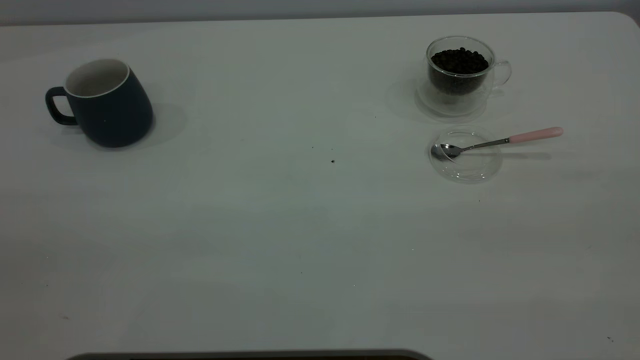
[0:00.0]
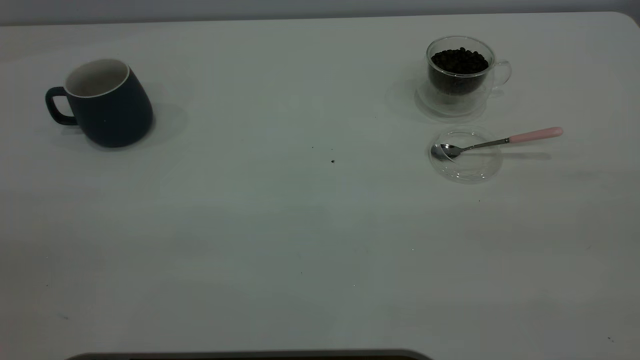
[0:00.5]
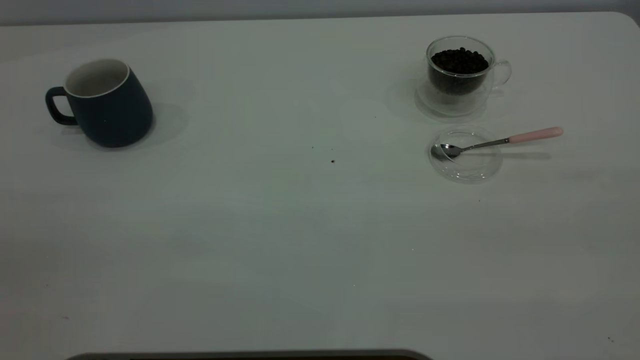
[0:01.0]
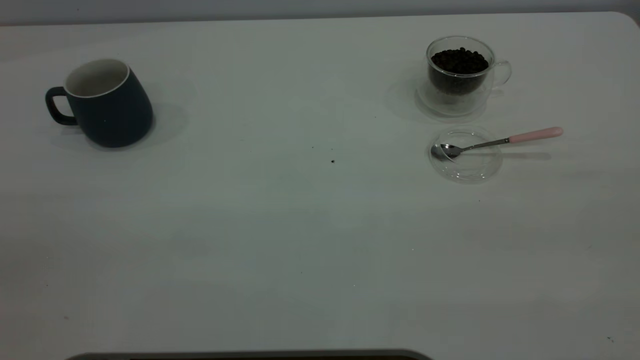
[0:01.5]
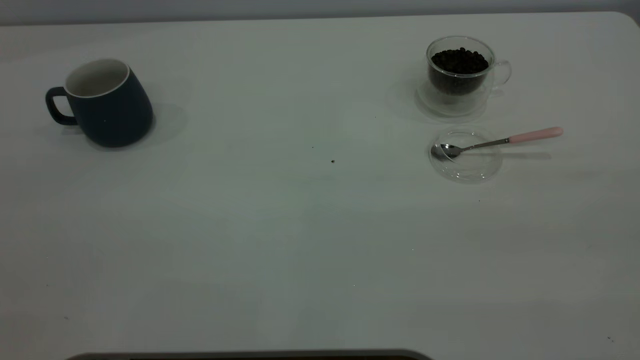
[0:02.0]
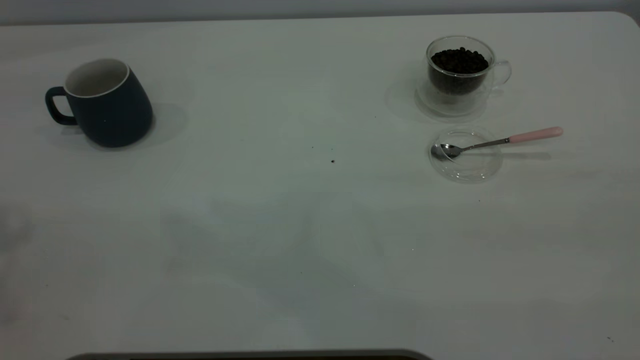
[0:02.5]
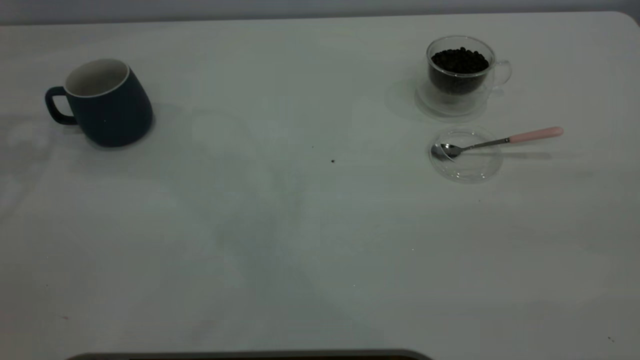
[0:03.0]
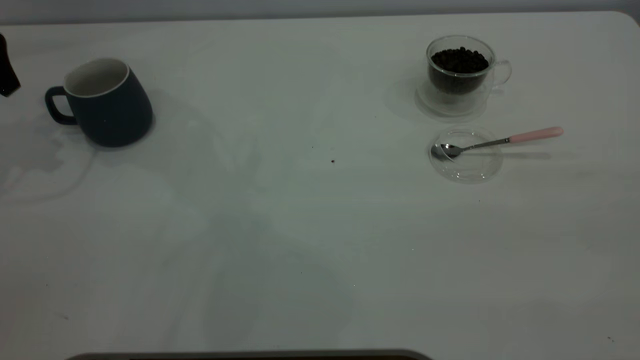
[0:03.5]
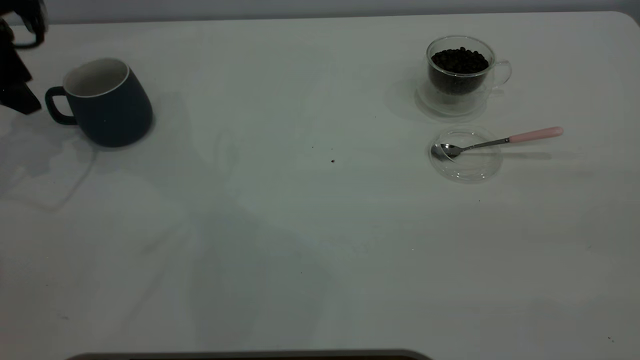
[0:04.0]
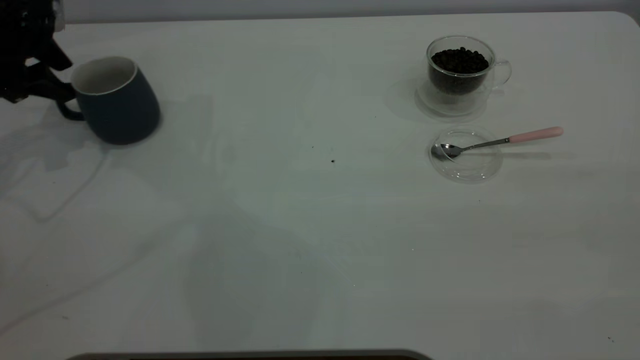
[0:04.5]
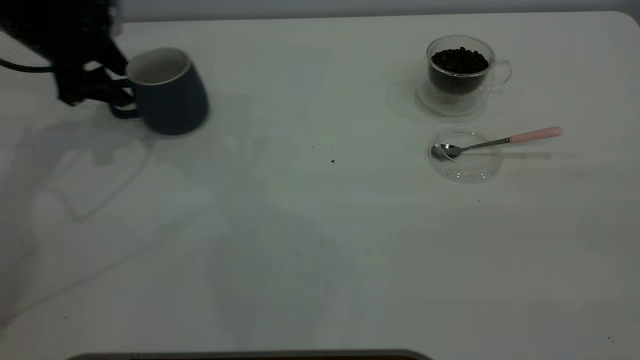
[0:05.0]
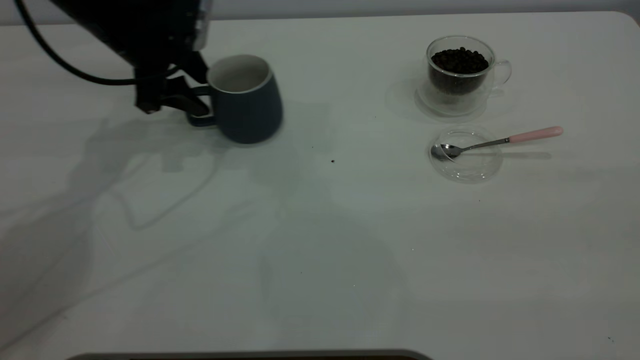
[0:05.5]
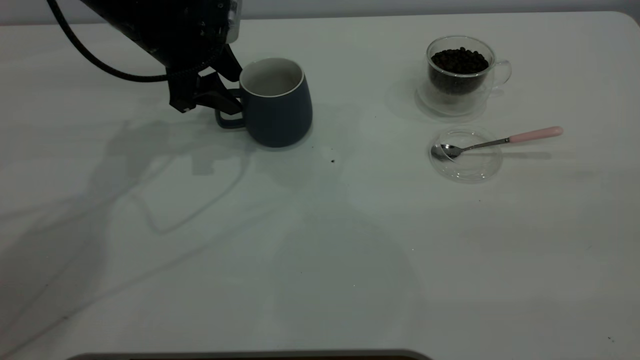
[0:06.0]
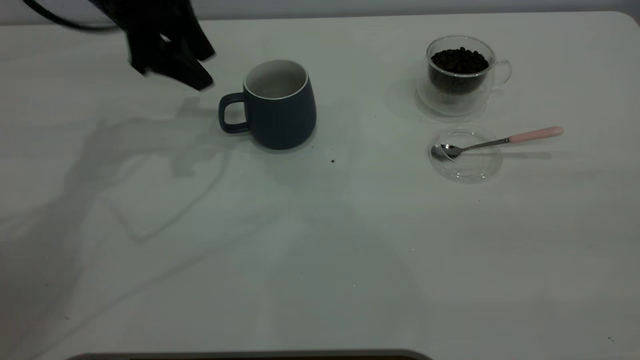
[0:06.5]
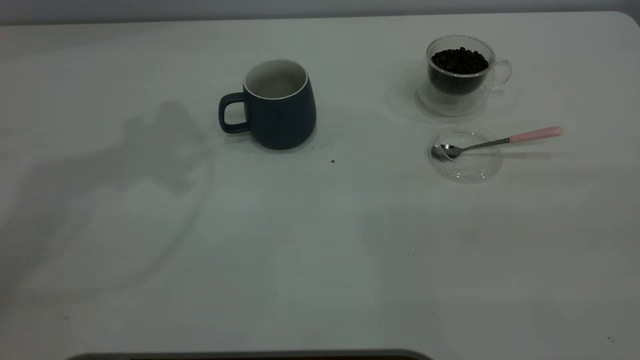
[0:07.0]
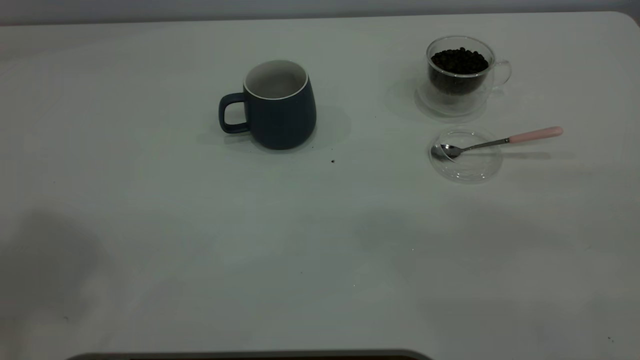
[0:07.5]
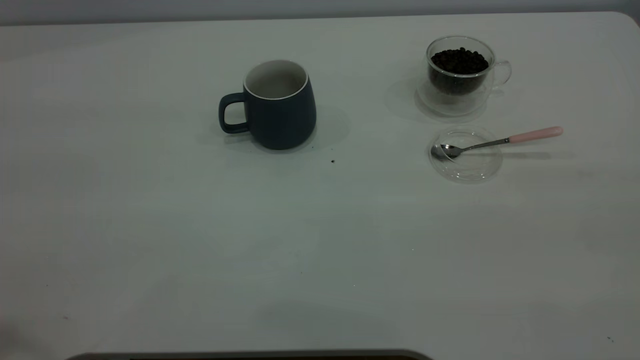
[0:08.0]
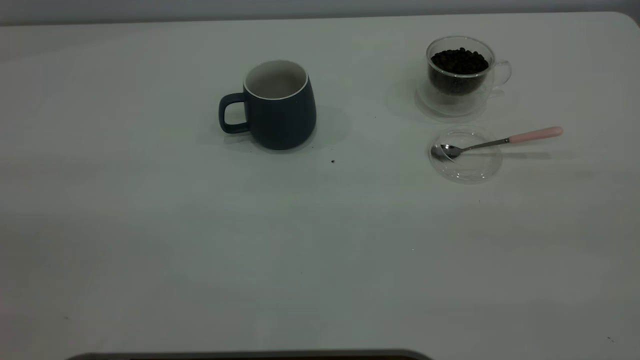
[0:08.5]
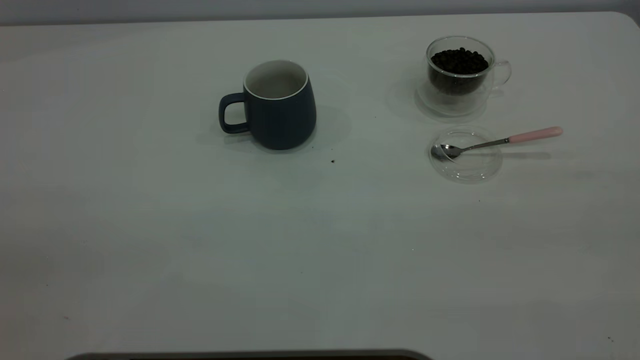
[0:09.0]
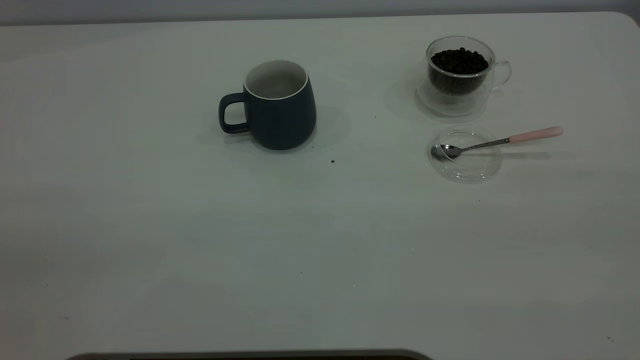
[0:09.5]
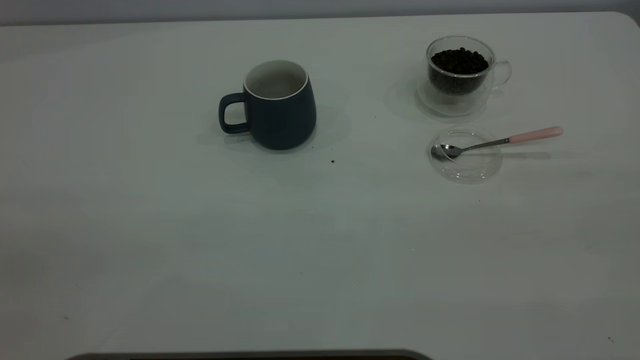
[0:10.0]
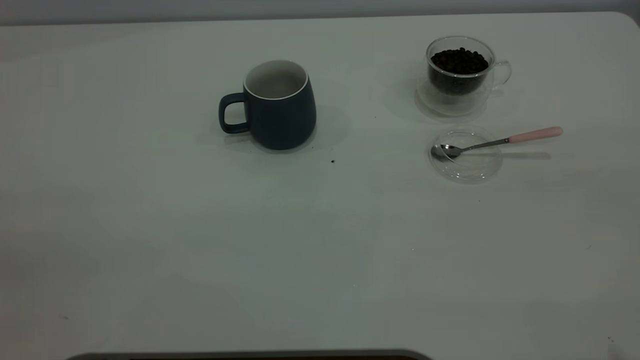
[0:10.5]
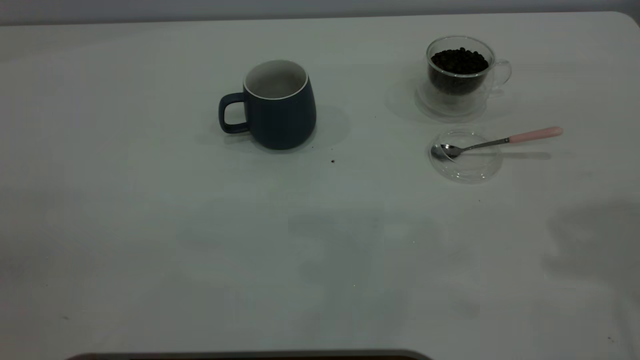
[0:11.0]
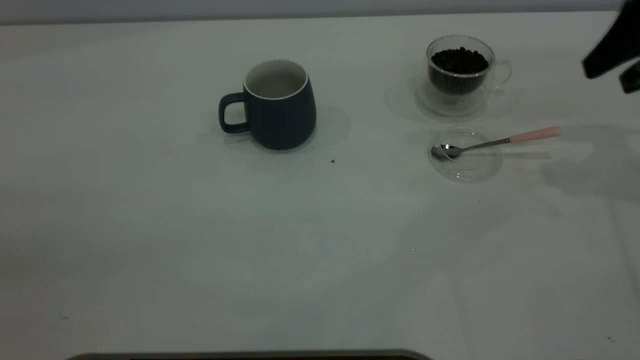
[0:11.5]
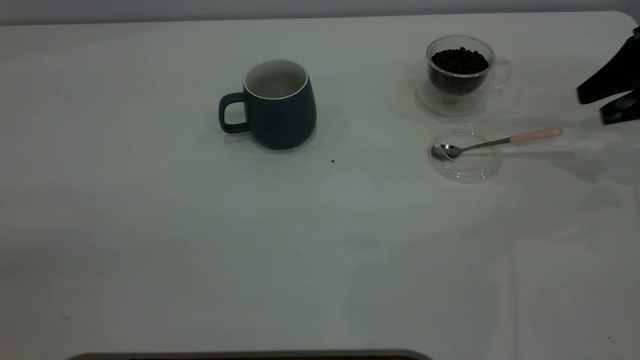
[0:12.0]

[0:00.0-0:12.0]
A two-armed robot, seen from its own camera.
Task of the whole recording: the left gripper place the grey cup in the center of the table, the right gripper take the pink spoon from the cup lid and scoop out the coffee beans from the coffee cup and put them into the grey cup, the right gripper put the spoon back into the cup lid.
Step, 0:00.0 to 0:06.0: Move the cup to the center of view.
0:02.0 to 0:04.0: The left gripper shifts some 50 cm forward and downward.
0:04.0 to 0:06.0: The left gripper goes about 20 cm to the right.
0:06.0 to 0:08.0: The left gripper heads backward and upward, covering approximately 40 cm.
0:10.0 to 0:12.0: The right gripper shifts roughly 40 cm forward and downward.

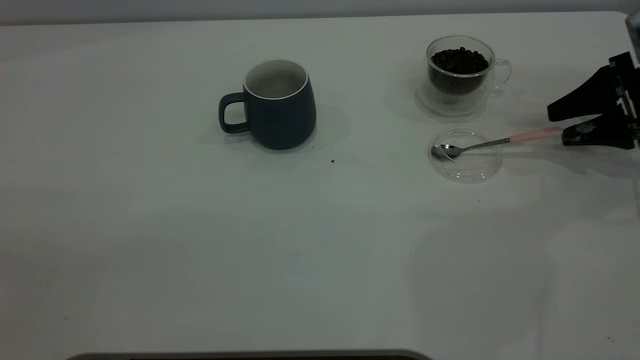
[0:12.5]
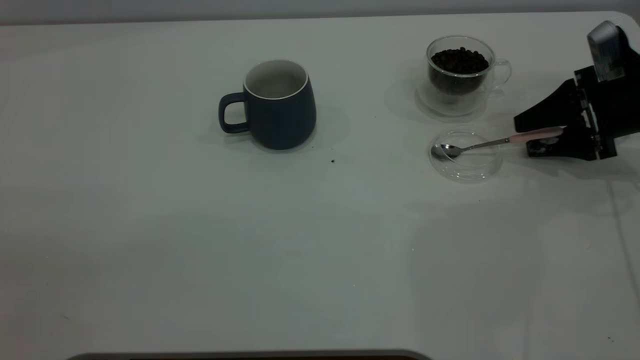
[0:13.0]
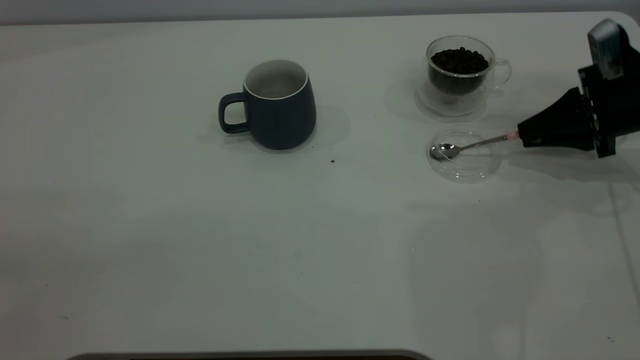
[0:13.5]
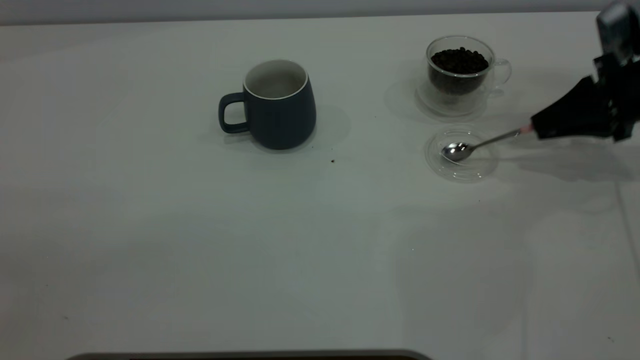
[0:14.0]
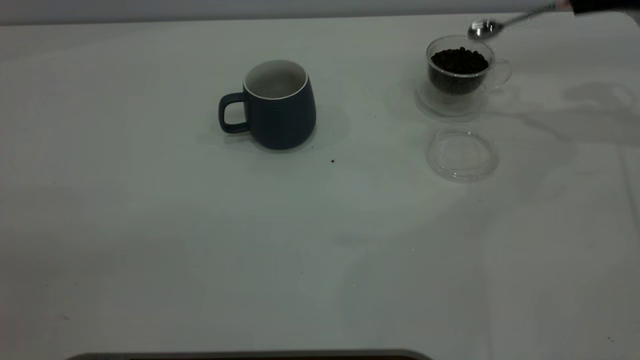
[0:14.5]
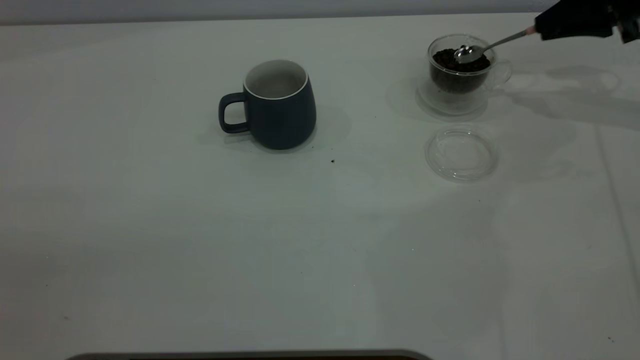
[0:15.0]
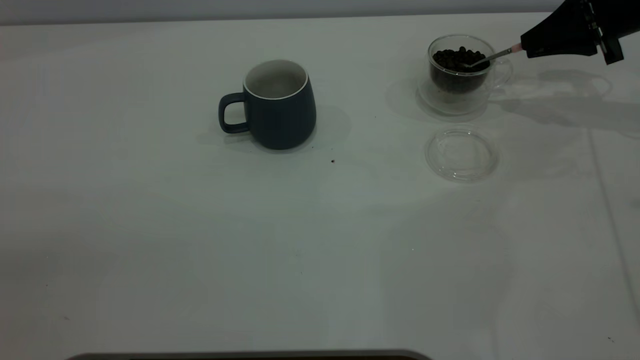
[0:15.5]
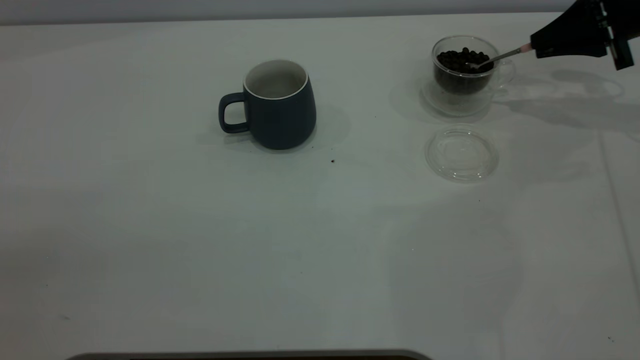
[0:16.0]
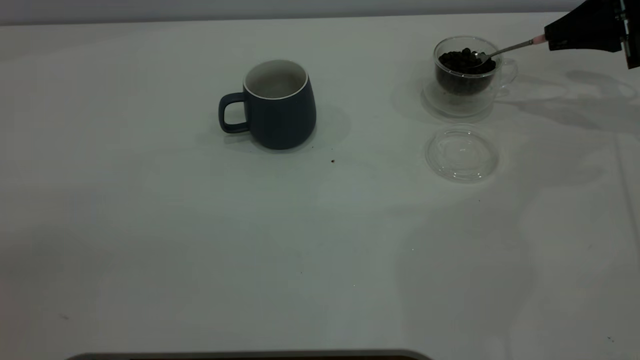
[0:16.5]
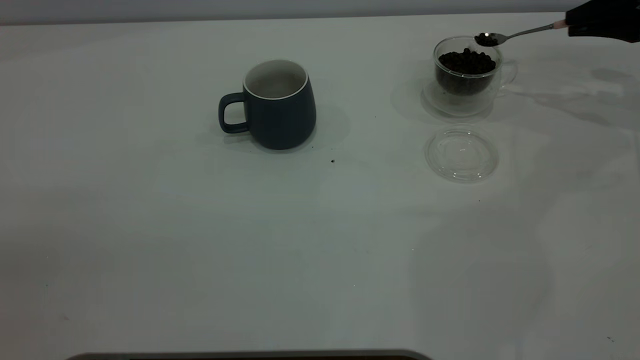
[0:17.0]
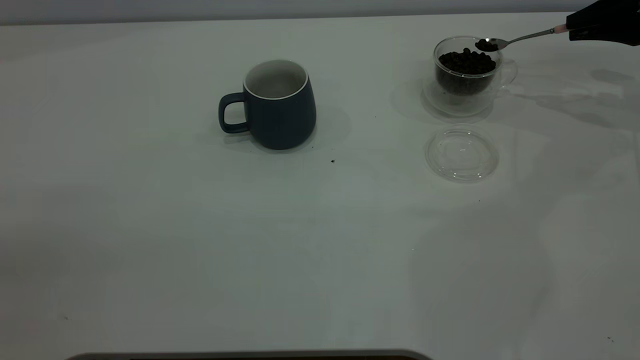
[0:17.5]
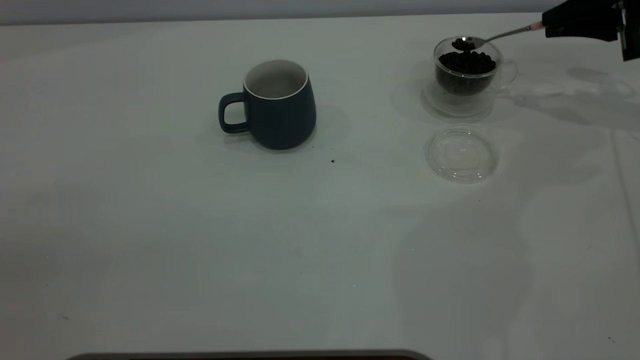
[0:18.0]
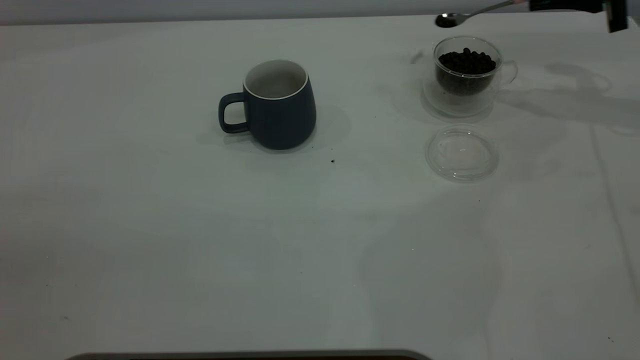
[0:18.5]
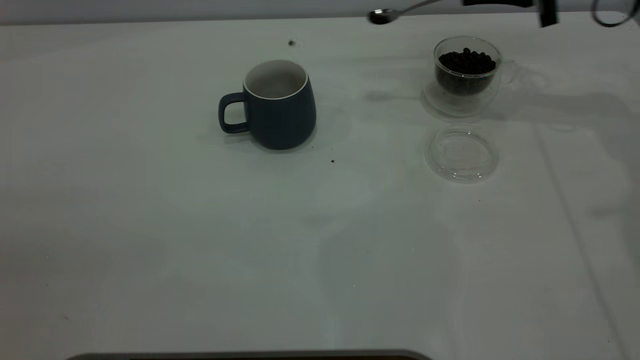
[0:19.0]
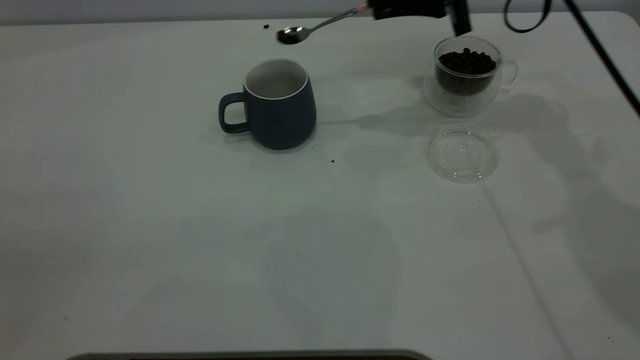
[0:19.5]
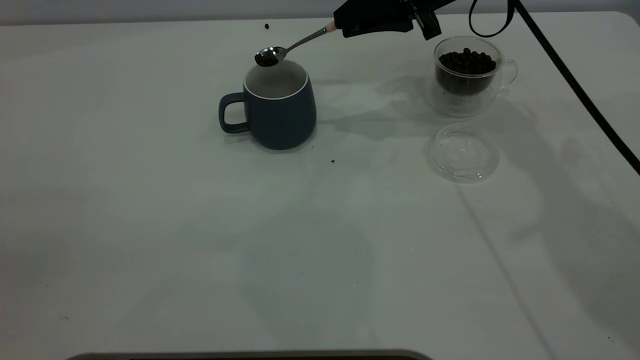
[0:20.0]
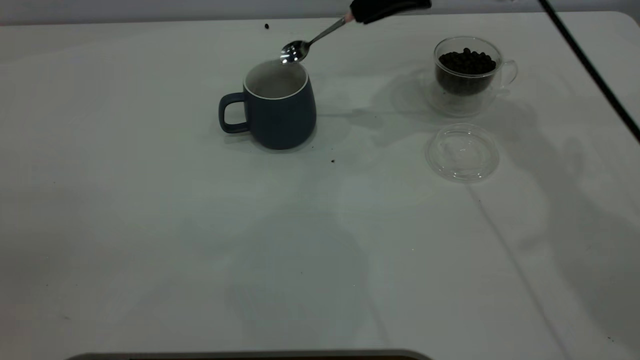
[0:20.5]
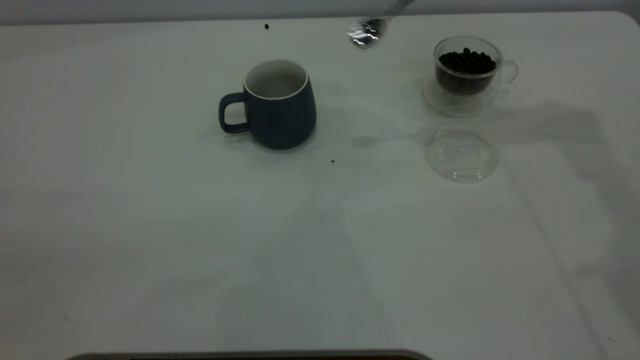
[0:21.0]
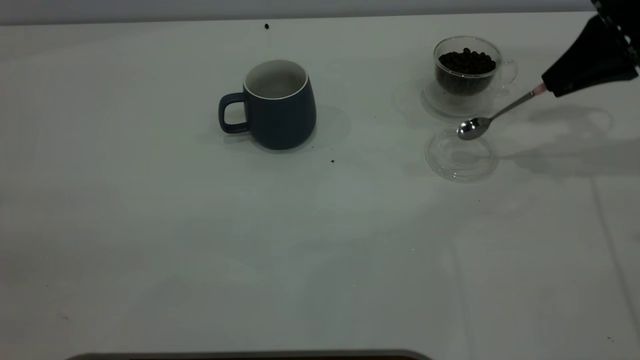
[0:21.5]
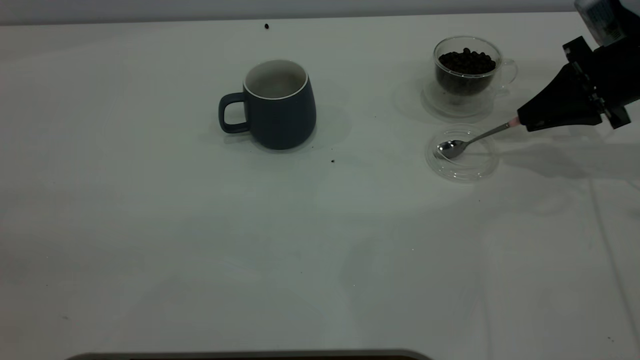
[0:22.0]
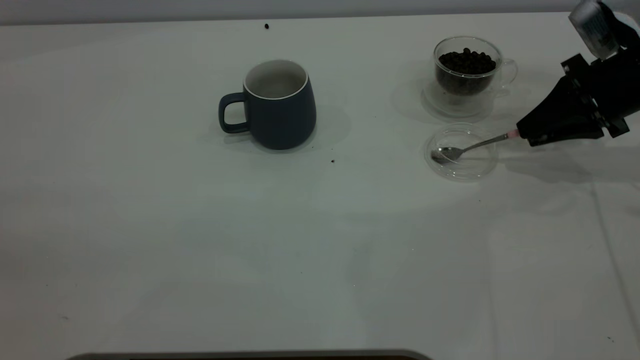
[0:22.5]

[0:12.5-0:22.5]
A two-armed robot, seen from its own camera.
Task of the whole recording: the left gripper place the grey cup in the center of the table, the right gripper take the pink spoon from the cup lid and scoop out the coffee beans from the coffee cup and put them into the grey cup, the right gripper put the spoon back into the cup lid.
Step, 0:14.5 to 0:20.5: Scoop a spoonful of beans into the cup.
0:12.5 to 0:14.5: The right gripper moves upward, approximately 15 cm, and closes its fingers.
0:14.5 to 0:16.5: The right gripper goes some 5 cm downward.
0:16.5 to 0:18.5: The right gripper changes place by approximately 5 cm.
0:18.5 to 0:20.5: The right gripper travels to the left by about 20 cm.
0:20.5 to 0:22.5: The right gripper goes some 25 cm to the right, downward and backward, and opens.
